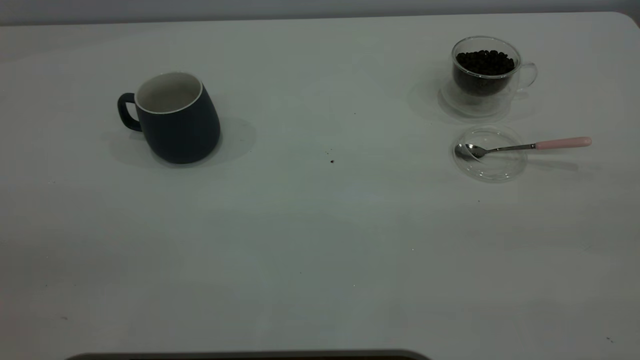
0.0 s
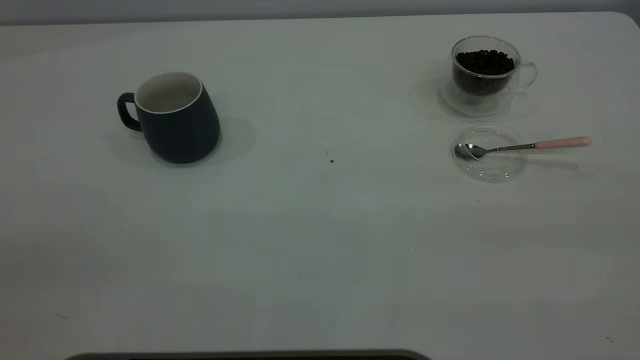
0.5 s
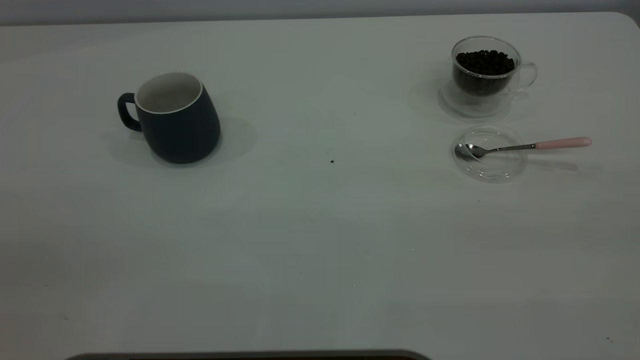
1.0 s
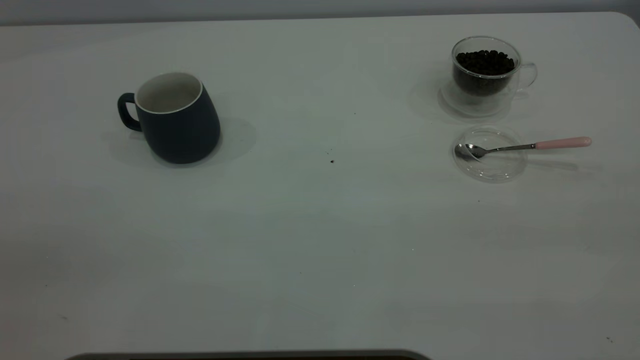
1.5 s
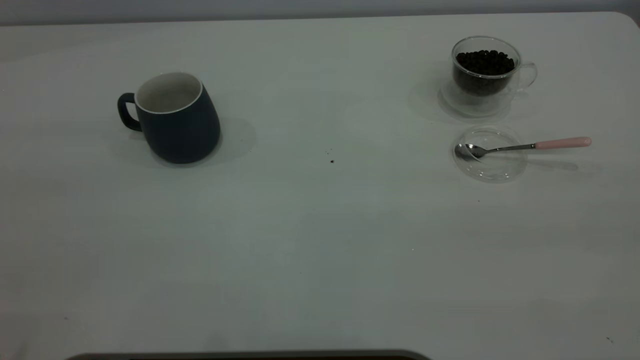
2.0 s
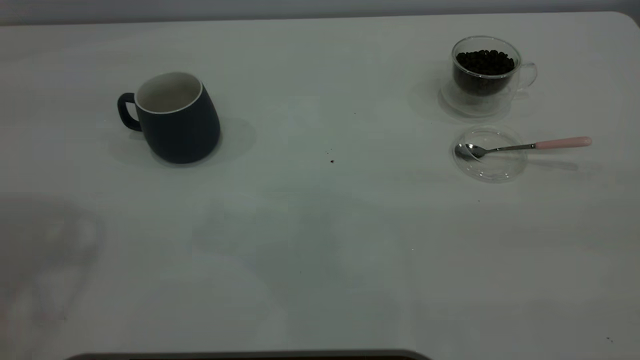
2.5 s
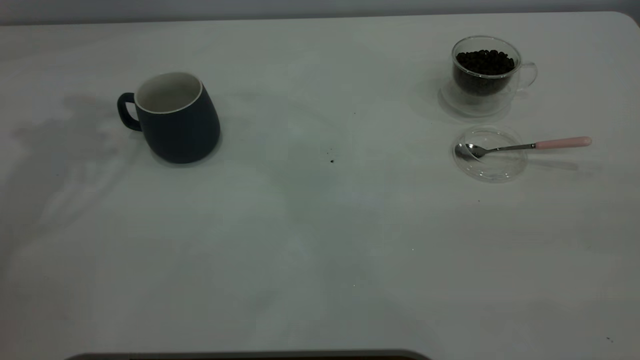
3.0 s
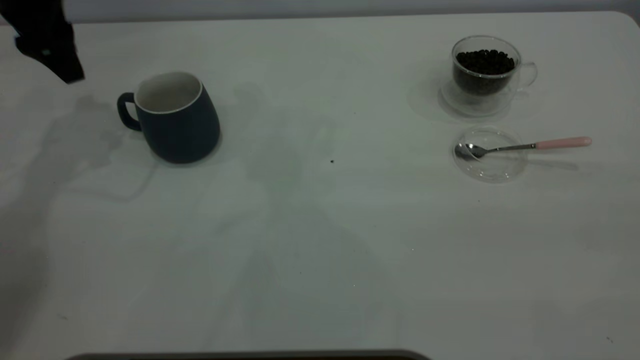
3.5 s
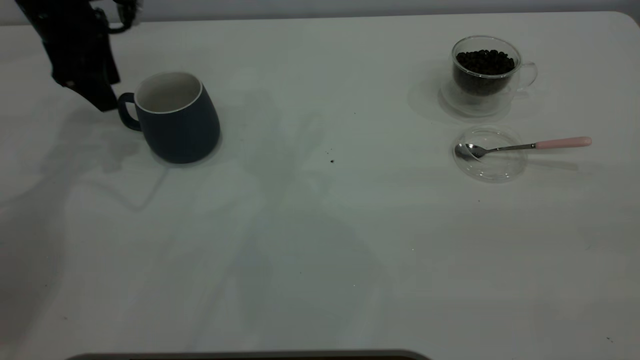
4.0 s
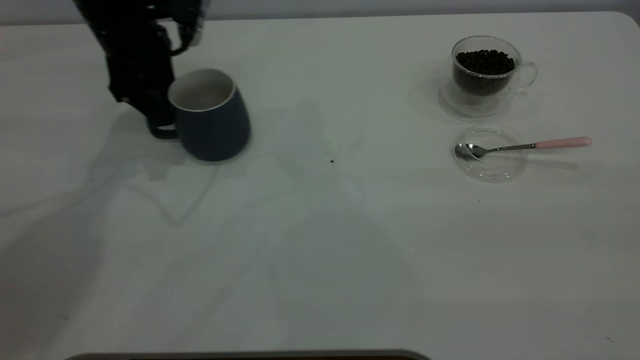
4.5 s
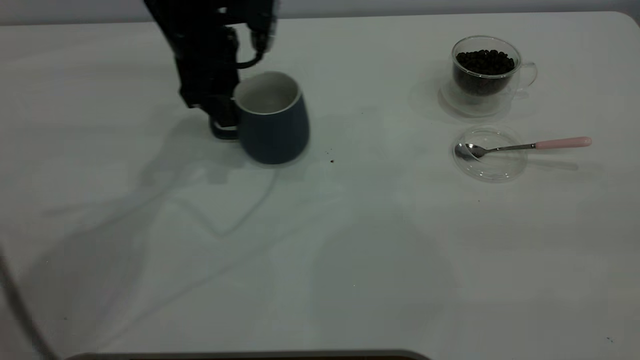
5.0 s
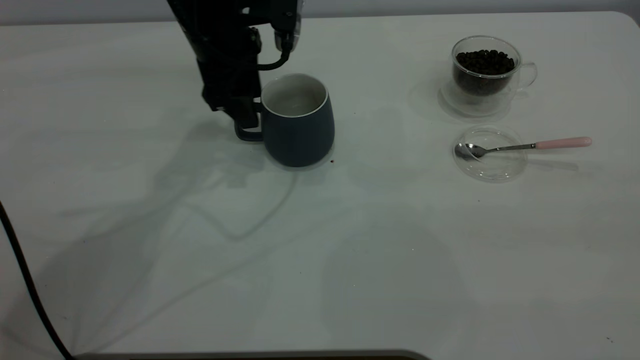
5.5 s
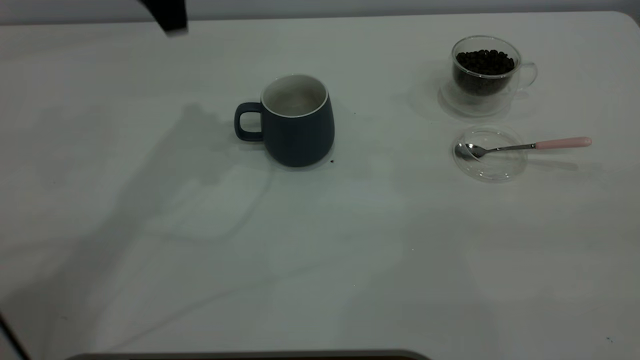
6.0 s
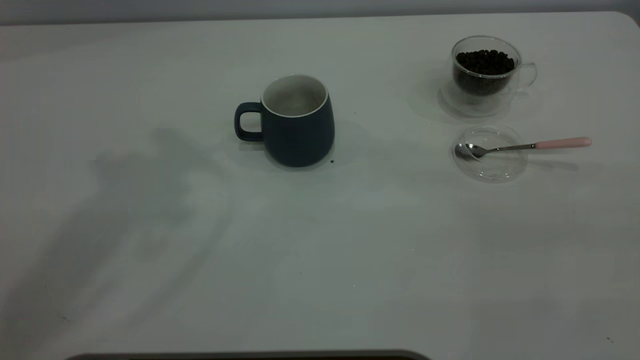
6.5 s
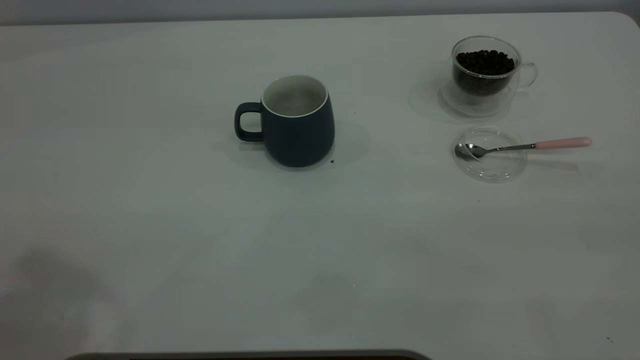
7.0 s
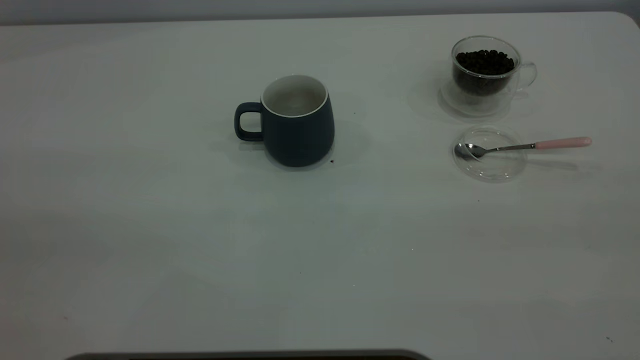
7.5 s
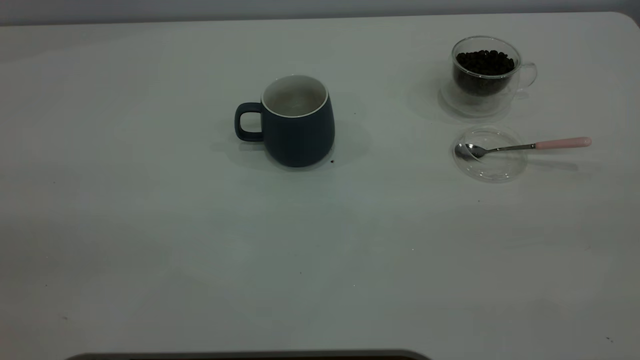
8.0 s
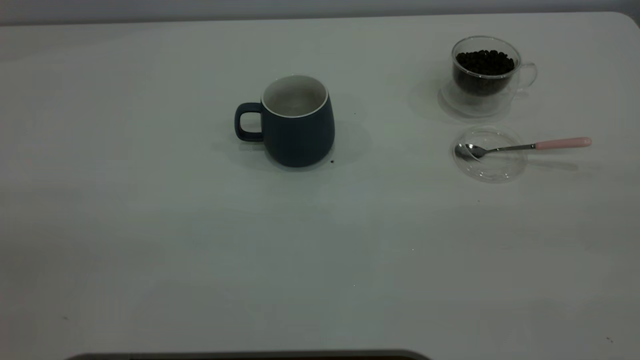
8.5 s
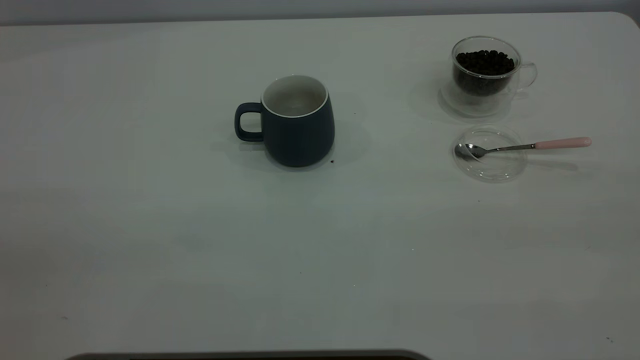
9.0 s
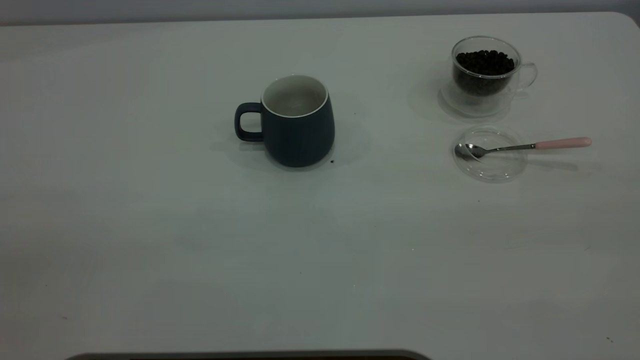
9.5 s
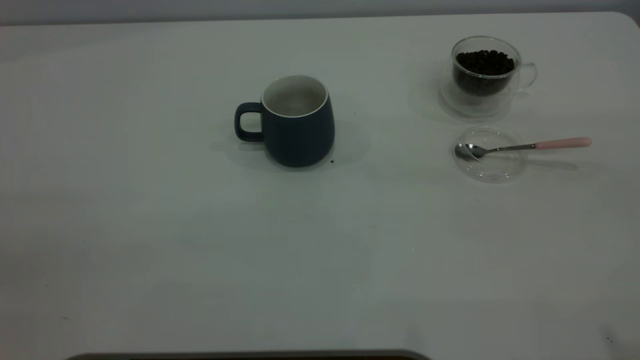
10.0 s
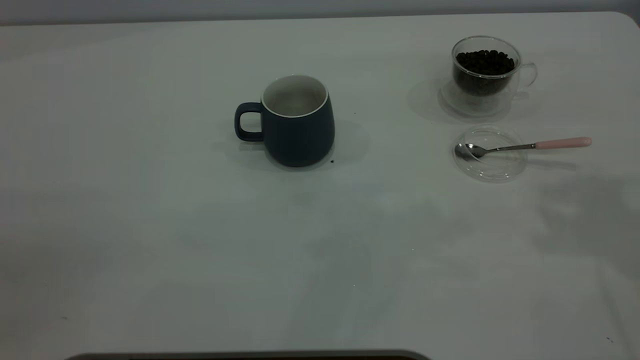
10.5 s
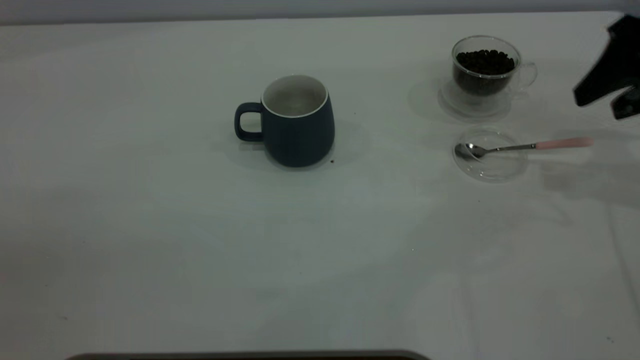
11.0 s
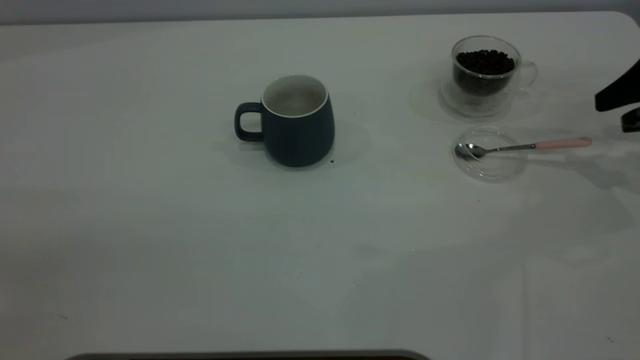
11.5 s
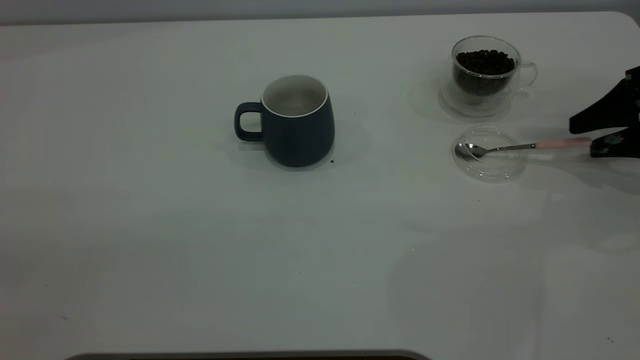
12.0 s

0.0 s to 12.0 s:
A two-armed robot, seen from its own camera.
Task of the whole recording: the left gripper place the grey cup in the center of the table, the right gripper take the pink spoon from the cup lid and scoop out the coffee beans from the coffee cup and put them into the grey cup, the right gripper put the spoon back into the cup lid.
Step, 0.0 to 5.5 s: Move the cup to the center of view.
2.0 to 4.0 s: The left gripper is displaced forward and downward by approximately 40 cm.
4.0 to 6.0 s: The left gripper shifts approximately 20 cm upward and to the right.
6.0 to 8.0 s: The left gripper is displaced backward by approximately 40 cm.
10.0 to 12.0 s: The right gripper goes some 40 cm downward and forward.

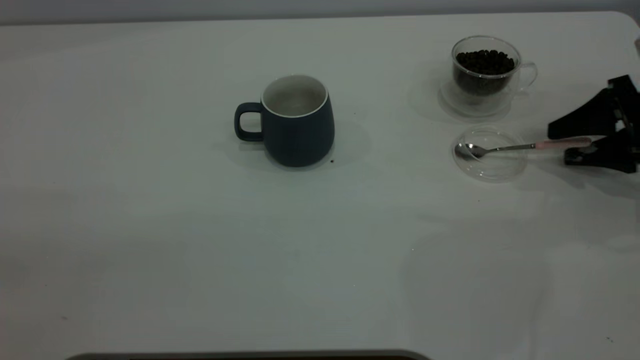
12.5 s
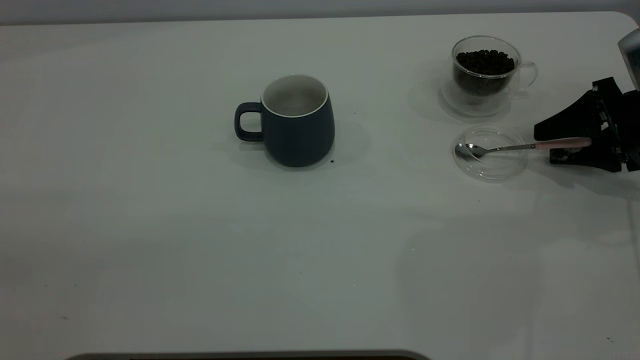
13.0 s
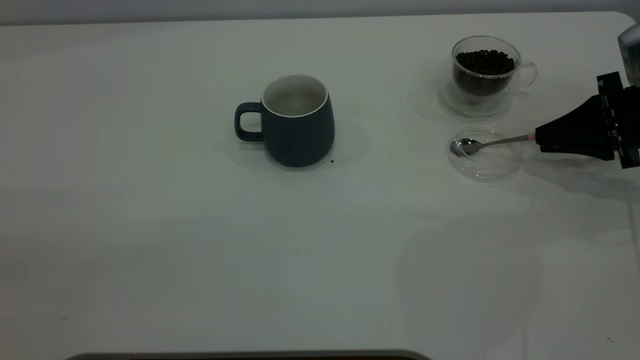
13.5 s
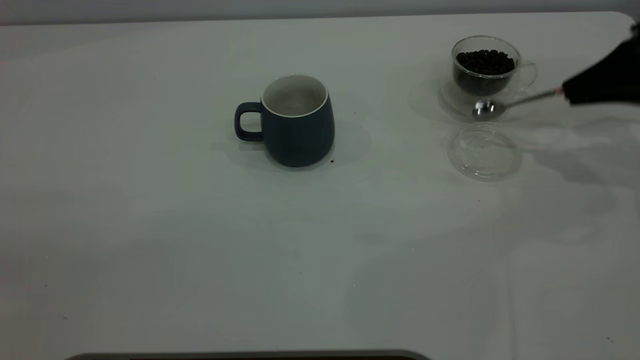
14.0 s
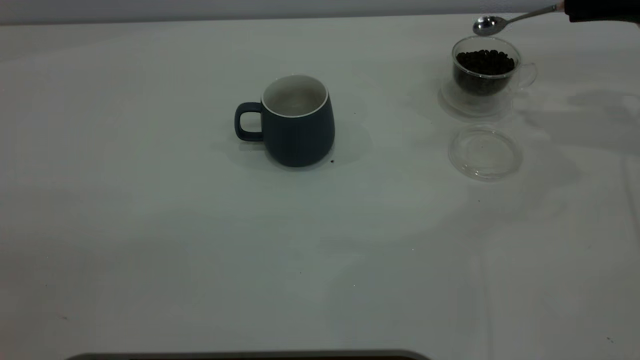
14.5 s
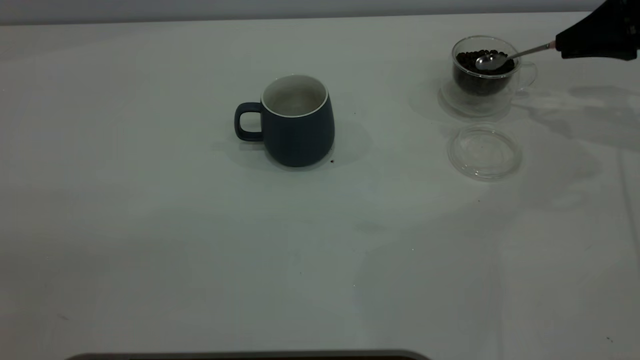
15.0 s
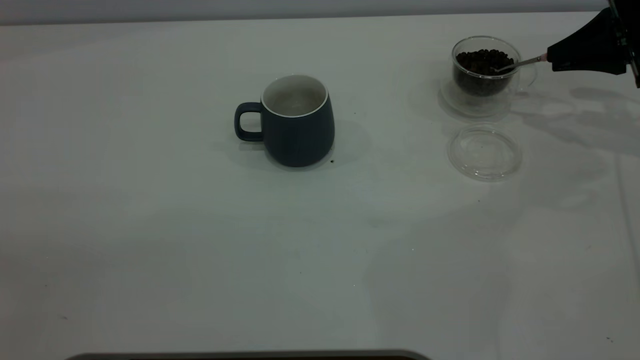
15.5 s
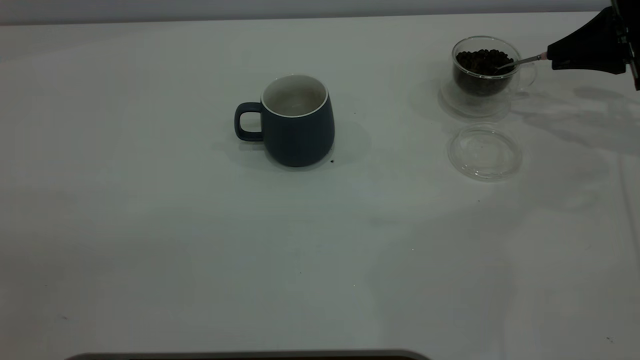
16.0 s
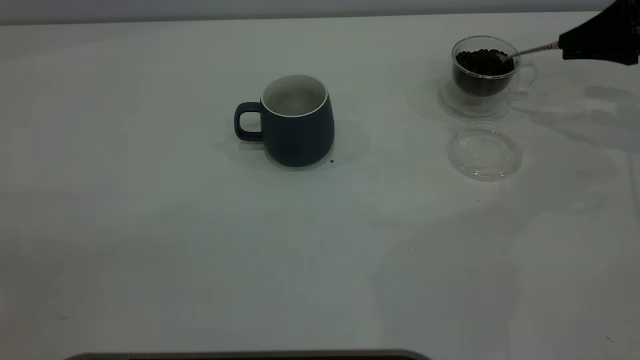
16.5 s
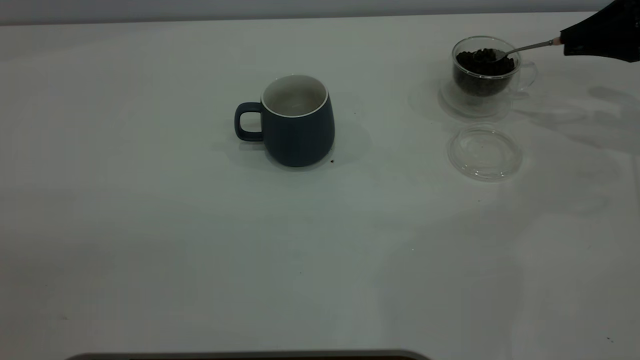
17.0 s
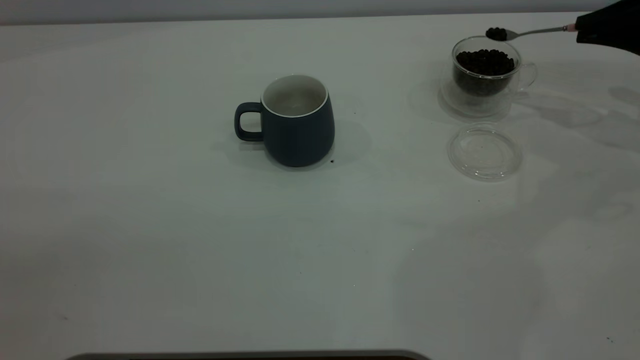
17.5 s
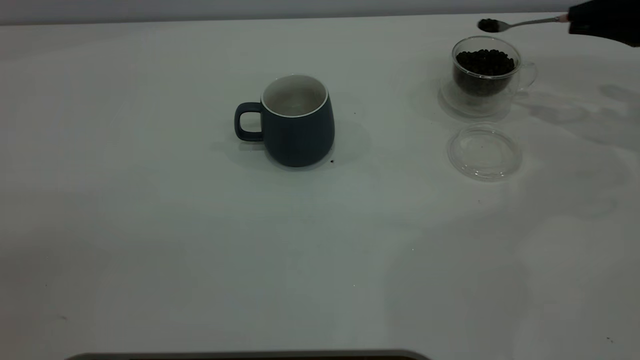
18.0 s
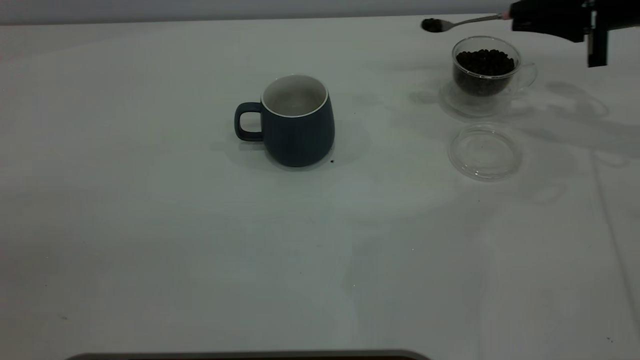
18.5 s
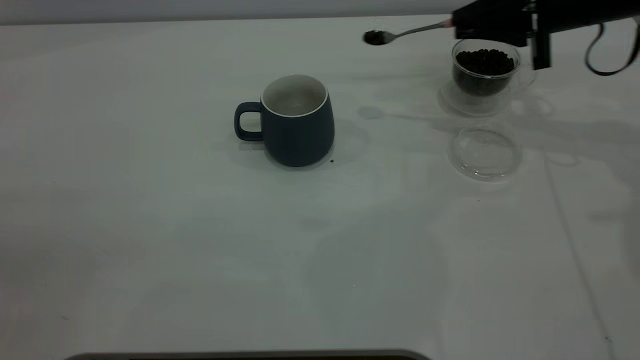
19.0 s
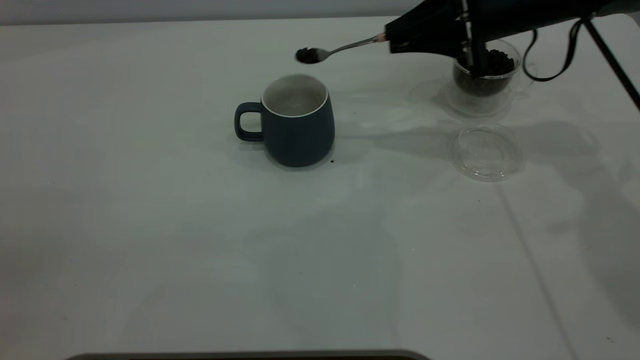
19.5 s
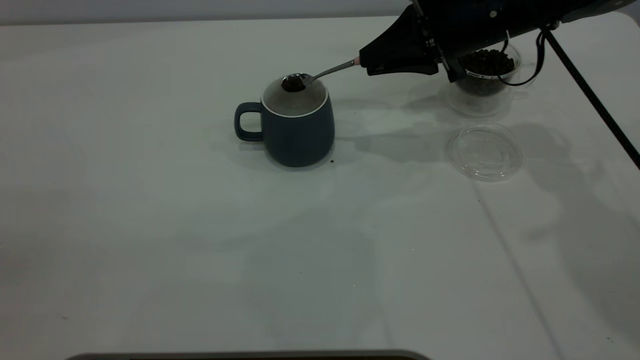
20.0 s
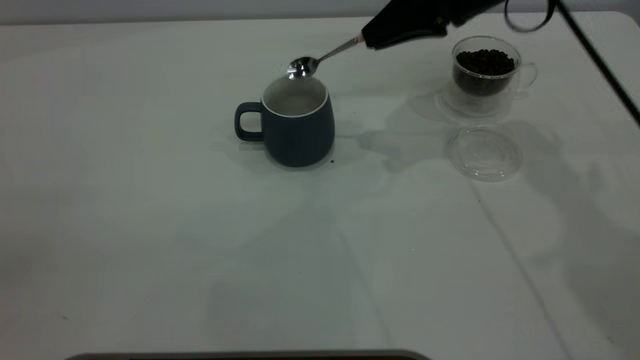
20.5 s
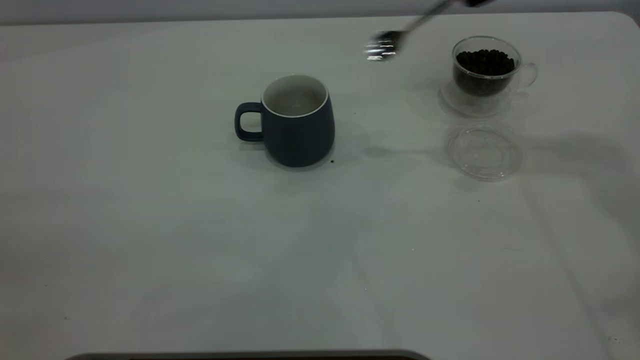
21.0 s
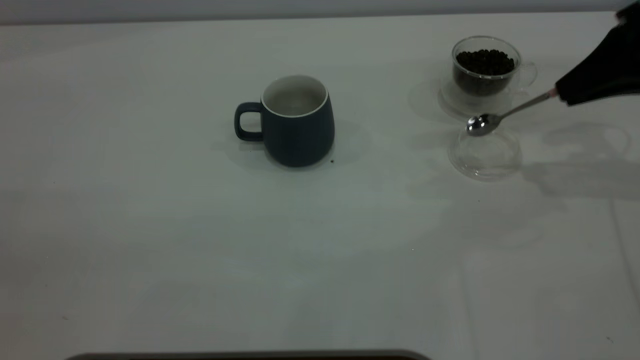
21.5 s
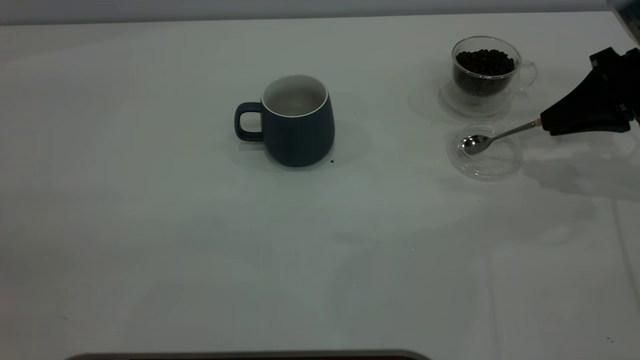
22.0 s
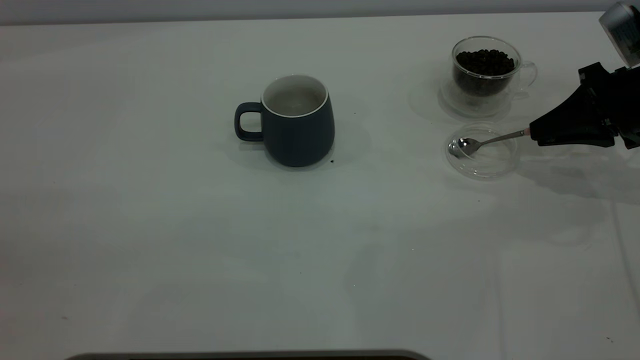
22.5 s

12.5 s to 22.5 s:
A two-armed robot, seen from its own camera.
Task of the whole recording: the left gripper place the grey cup in the center of the table, the right gripper take the pink spoon from the cup lid and scoop out the coffee beans from the coffee cup and put them into the grey cup, the right gripper put the spoon back into the cup lid.
Step, 14.5 to 20.5 s: Scoop a spoonful of beans into the cup.
12.5 to 14.5 s: The right gripper heads upward and forward, covering roughly 15 cm, and closes its fingers.
14.5 to 16.5 s: There are only small adjustments of the grippers.
16.5 to 18.5 s: The right gripper goes approximately 5 cm to the left.
18.5 to 20.5 s: The right gripper is displaced to the left by roughly 15 cm.
20.5 to 22.5 s: The right gripper goes some 20 cm to the right and downward.
